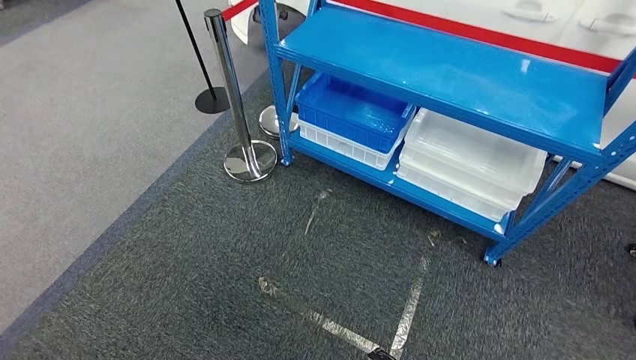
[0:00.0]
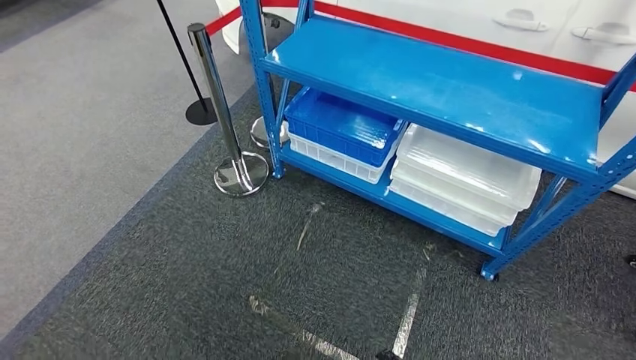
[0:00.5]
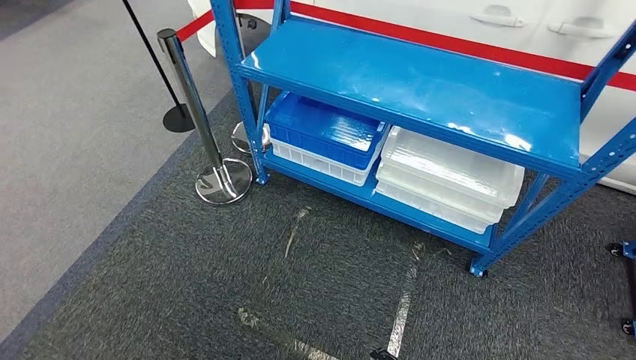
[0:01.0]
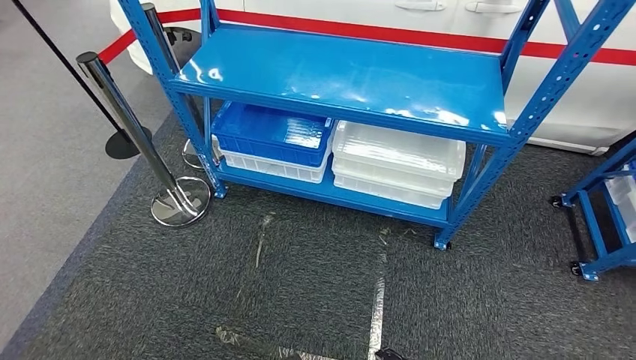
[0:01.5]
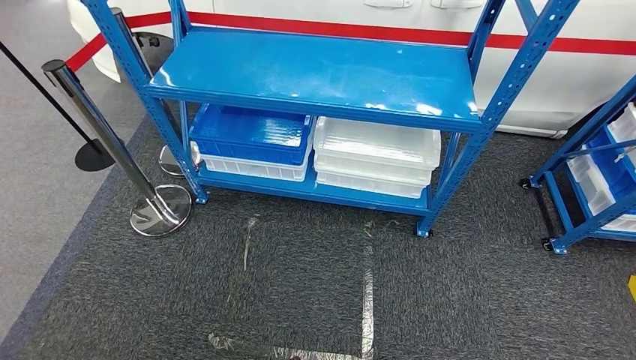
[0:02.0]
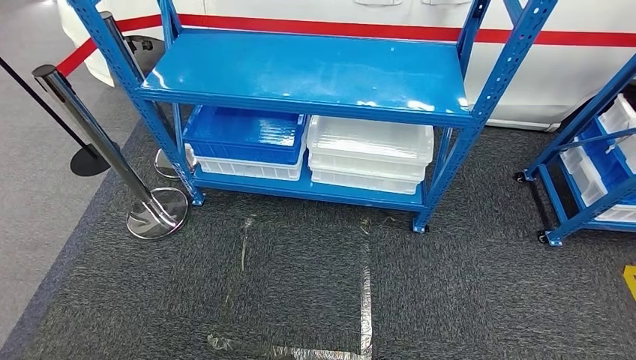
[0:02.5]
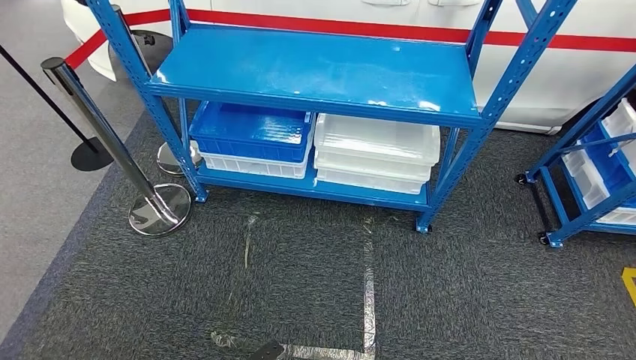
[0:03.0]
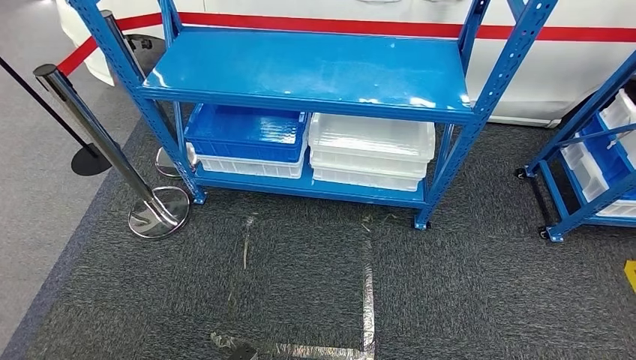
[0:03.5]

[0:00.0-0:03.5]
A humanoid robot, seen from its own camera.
Step, 0:00.0 to 0:03.5: Move to the initial position of the shelf.
